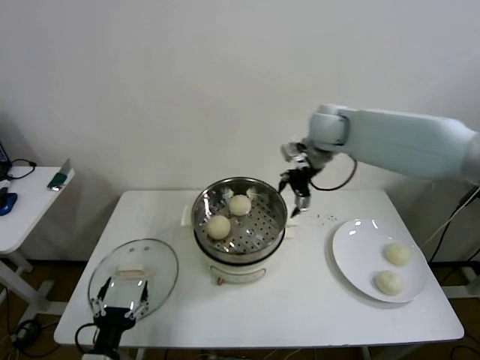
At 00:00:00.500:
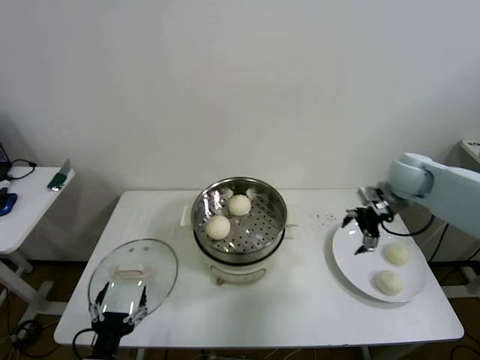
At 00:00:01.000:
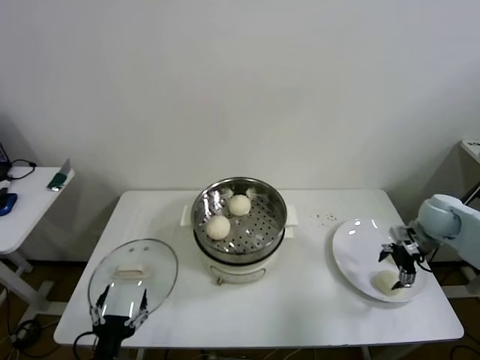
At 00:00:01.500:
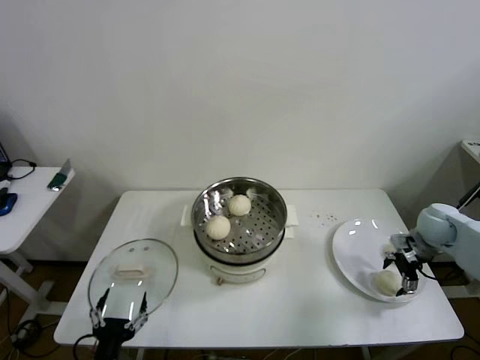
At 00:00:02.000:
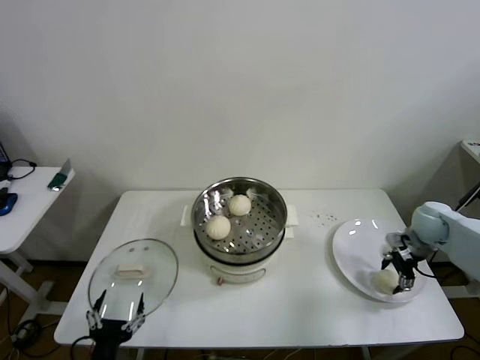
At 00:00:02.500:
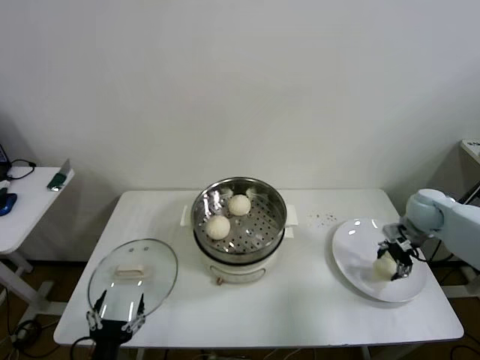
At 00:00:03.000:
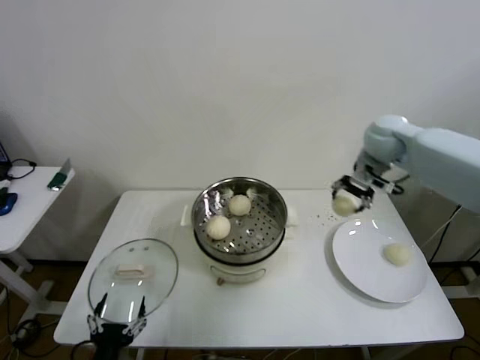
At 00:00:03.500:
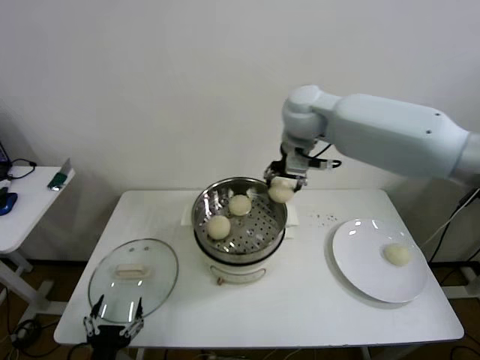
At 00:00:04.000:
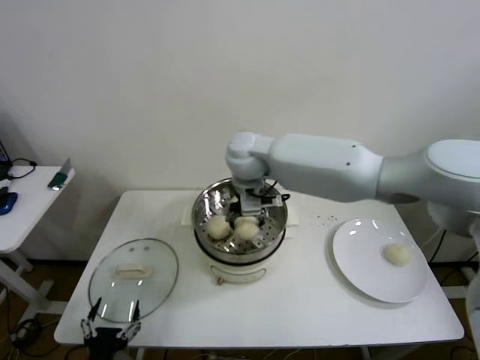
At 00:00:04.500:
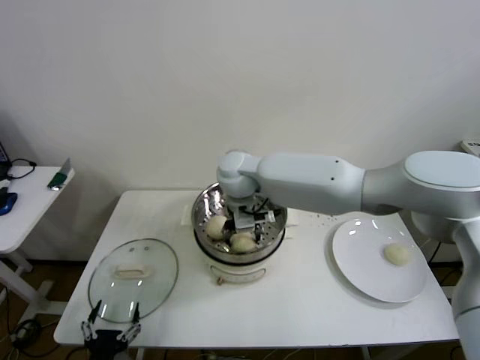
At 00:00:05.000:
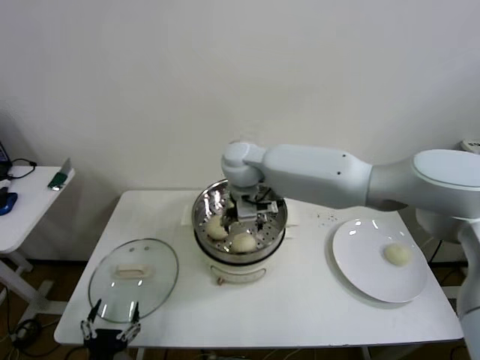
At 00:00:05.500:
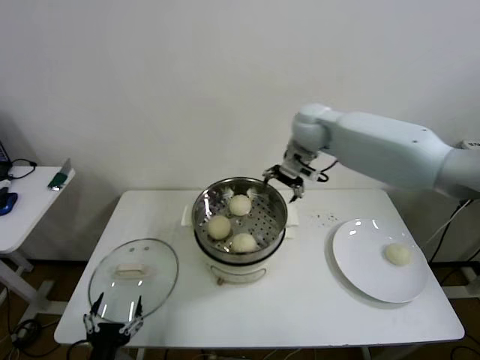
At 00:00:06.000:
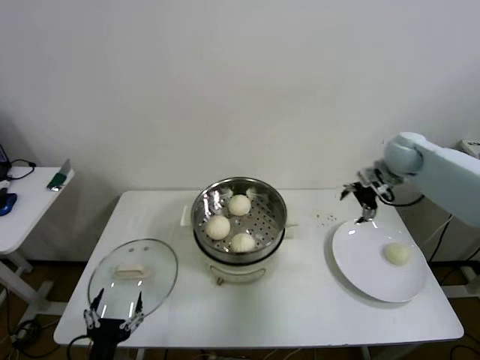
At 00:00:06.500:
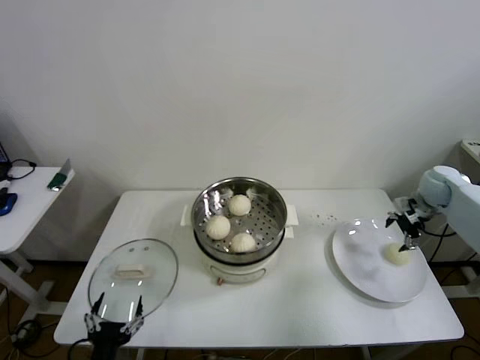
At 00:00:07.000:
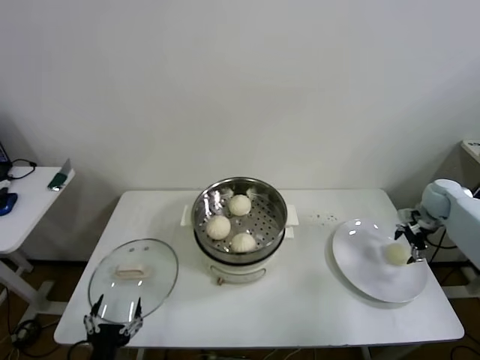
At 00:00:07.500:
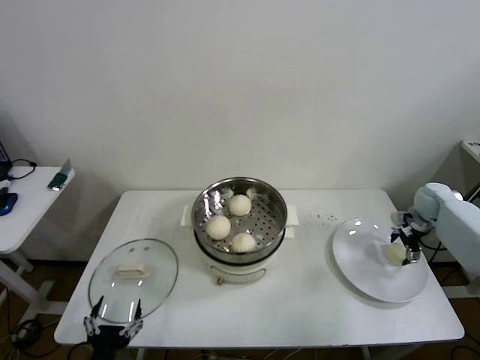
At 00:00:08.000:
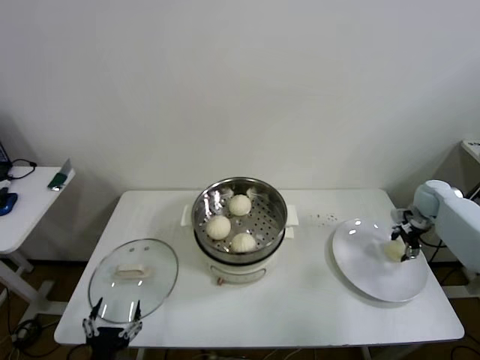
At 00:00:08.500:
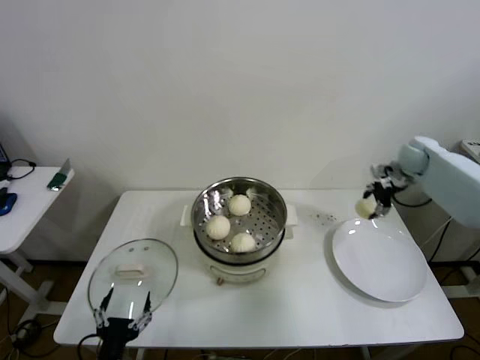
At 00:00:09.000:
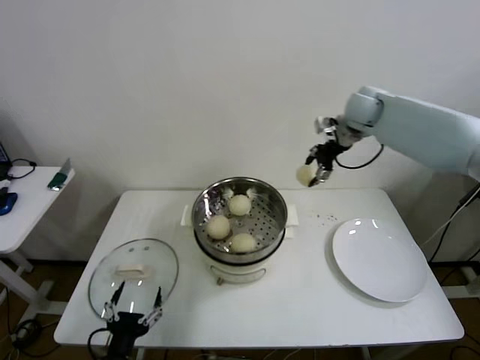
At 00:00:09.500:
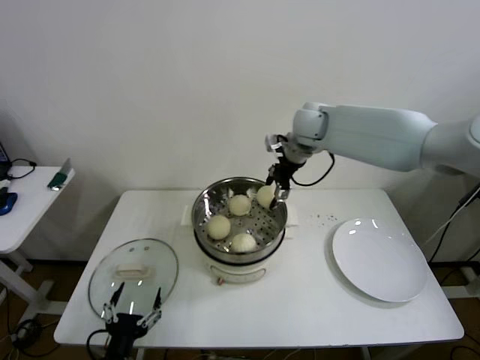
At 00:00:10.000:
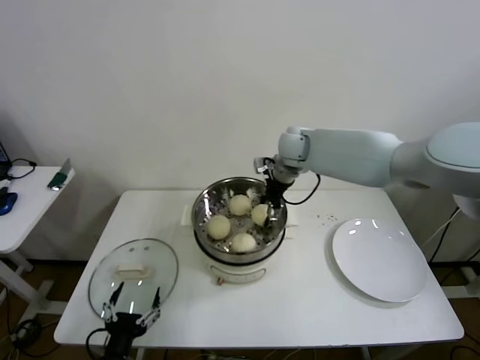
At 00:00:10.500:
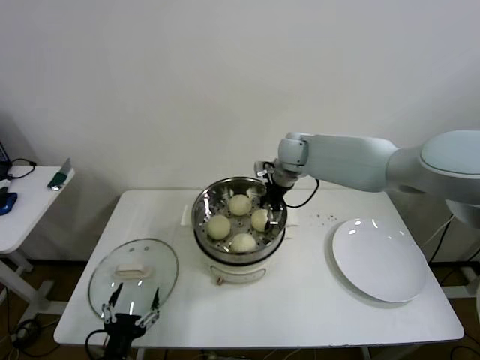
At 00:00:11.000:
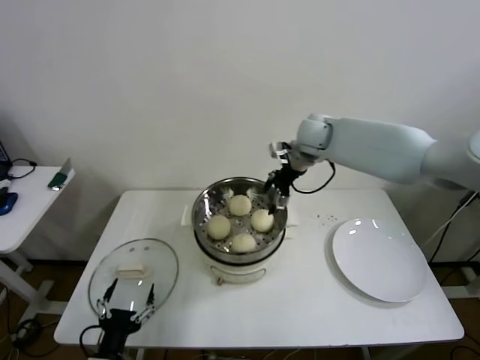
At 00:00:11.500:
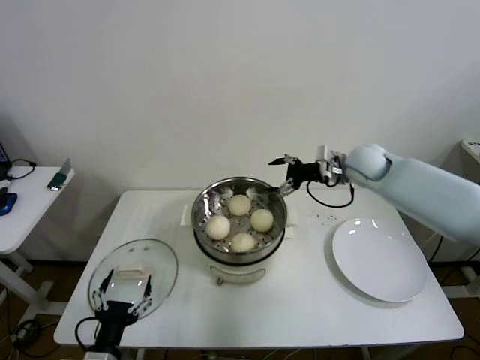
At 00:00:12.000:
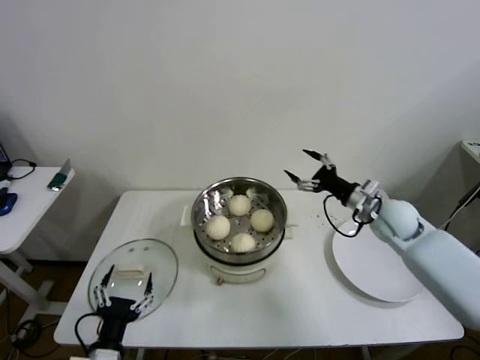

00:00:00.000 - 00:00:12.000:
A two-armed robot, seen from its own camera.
Step, 00:00:00.000 - 00:00:02.000: Grasp the baozi in the plate with right gripper.
Step, 00:00:02.500 - 00:00:05.000: Place the baozi on the steamer with right gripper.
Step, 00:00:05.500 - 00:00:07.500: Grasp the baozi in the plate with right gripper.
Step, 00:00:08.500 - 00:00:11.000: Place the baozi on the steamer with right gripper.
00:00:00.000 - 00:00:02.000: The right gripper travels to the right and downward by some 35 cm, and closes its fingers.
00:00:02.000 - 00:00:04.000: The right gripper goes roughly 50 cm to the left.
00:00:04.000 - 00:00:06.000: The right gripper heads to the right, covering approximately 40 cm, and opens its fingers.
00:00:06.000 - 00:00:08.000: The right gripper is displaced downward and to the right by roughly 20 cm, and closes.
00:00:08.000 - 00:00:10.000: The right gripper travels to the left by some 40 cm.
00:00:10.000 - 00:00:12.000: The right gripper shifts roughly 30 cm to the right, backward and downward, and opens up.

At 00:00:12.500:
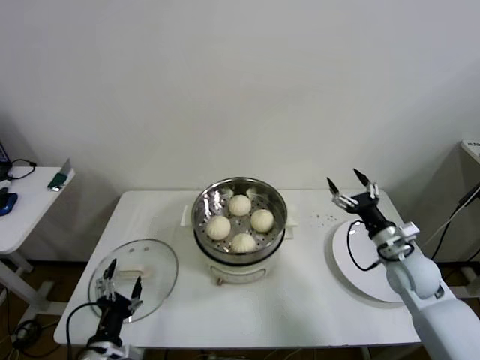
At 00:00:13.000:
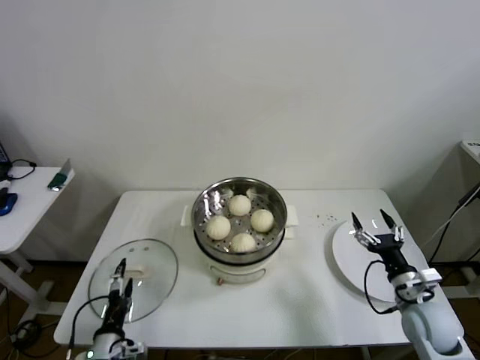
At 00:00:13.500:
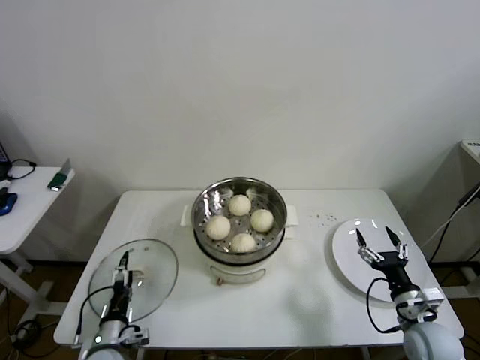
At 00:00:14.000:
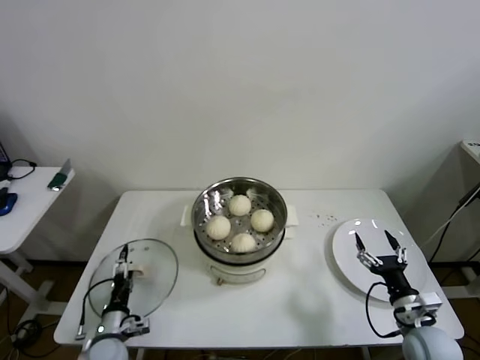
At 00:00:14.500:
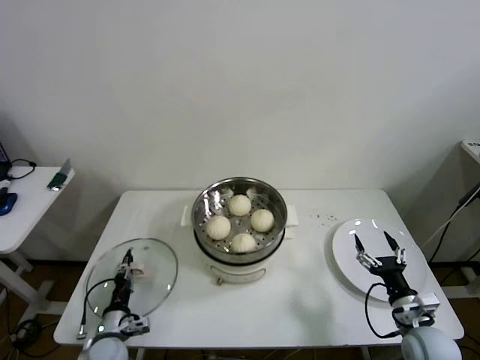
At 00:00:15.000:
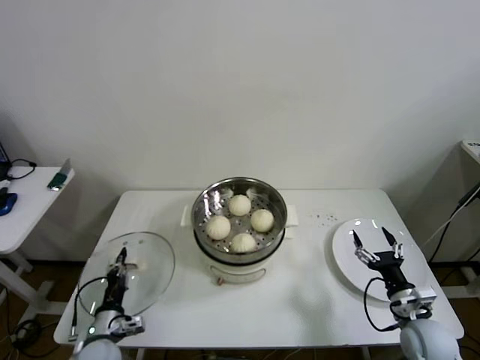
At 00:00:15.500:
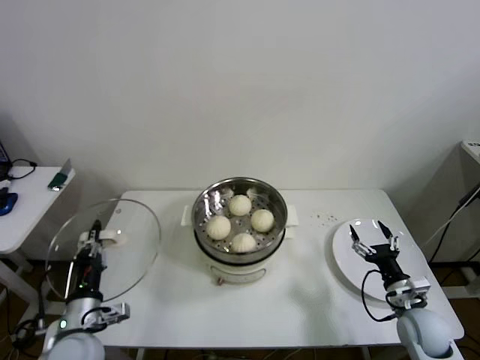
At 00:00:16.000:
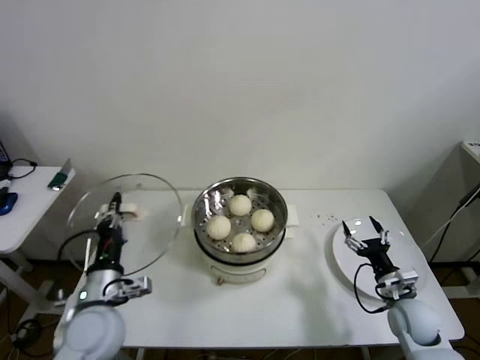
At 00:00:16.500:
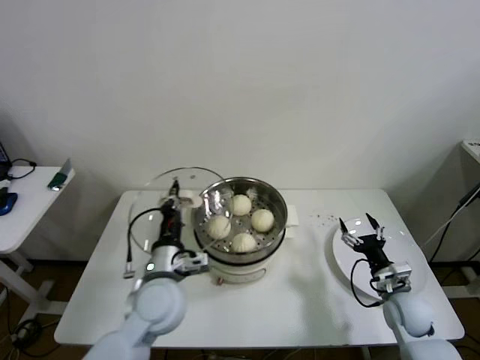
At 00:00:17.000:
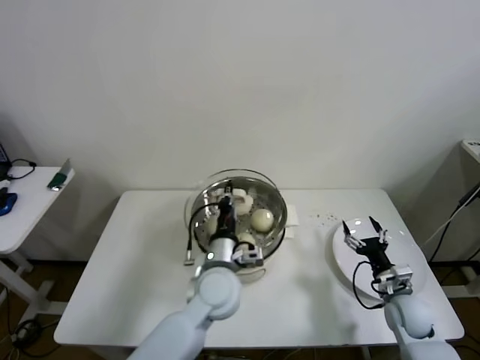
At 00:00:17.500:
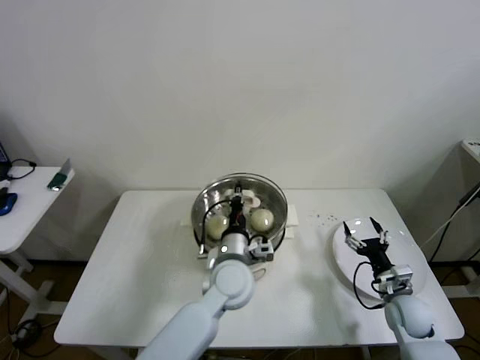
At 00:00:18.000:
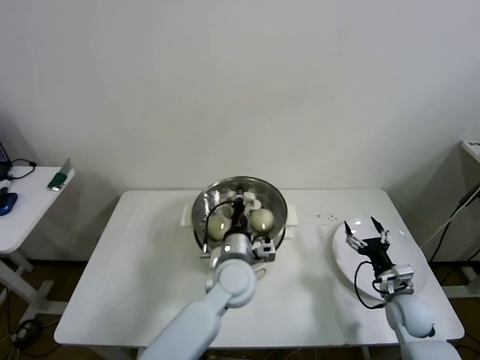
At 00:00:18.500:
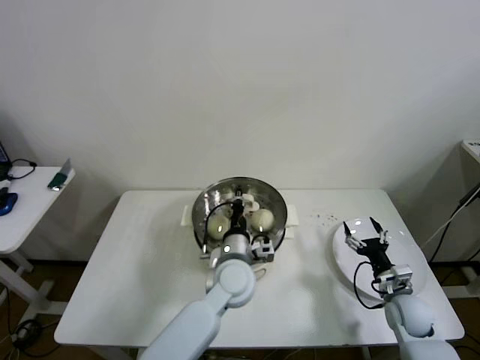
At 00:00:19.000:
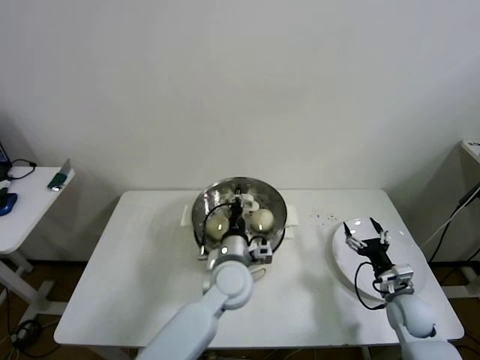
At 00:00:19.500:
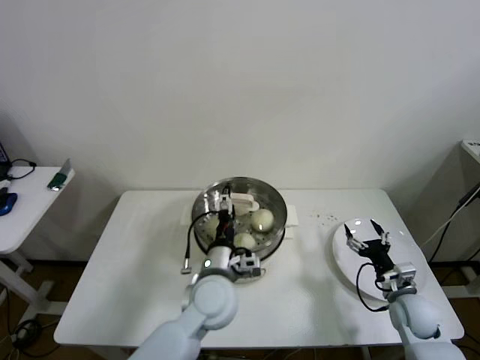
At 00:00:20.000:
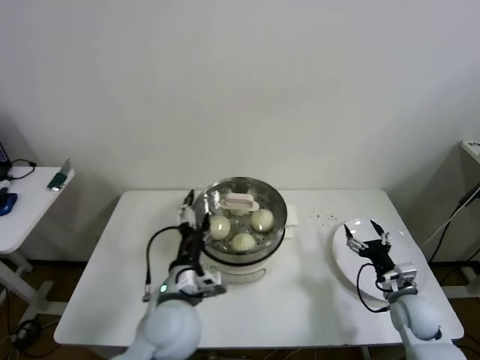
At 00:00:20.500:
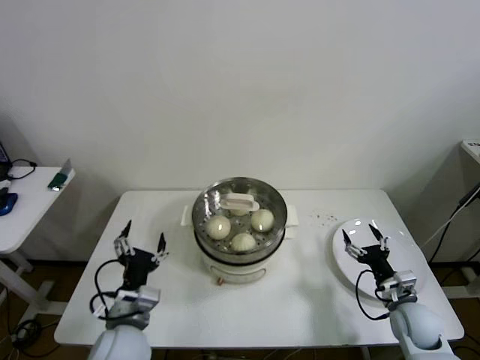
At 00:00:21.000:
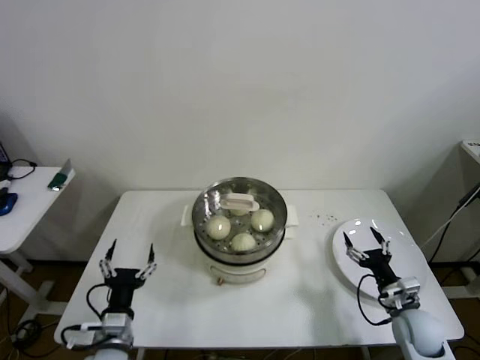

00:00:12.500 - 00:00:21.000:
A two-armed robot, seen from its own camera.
Step, 00:00:12.500 - 00:00:14.500: Grasp the pot lid with left gripper.
Step, 00:00:15.000 - 00:00:19.500: Place the pot lid on the steamer with left gripper.
00:00:12.500 - 00:00:14.500: The right gripper travels backward and downward by roughly 15 cm, while the left gripper moves downward and forward, about 15 cm, and closes up.
00:00:14.500 - 00:00:16.500: The left gripper goes about 25 cm upward and to the right, and closes. The right gripper goes some 10 cm forward.
00:00:16.500 - 00:00:19.000: The left gripper shifts some 15 cm to the right and forward.
00:00:19.000 - 00:00:21.000: The left gripper is displaced to the left and backward by about 30 cm, and opens up.
